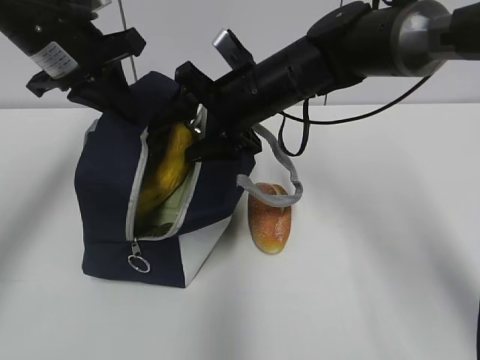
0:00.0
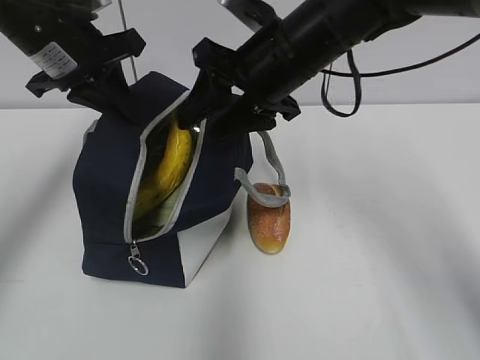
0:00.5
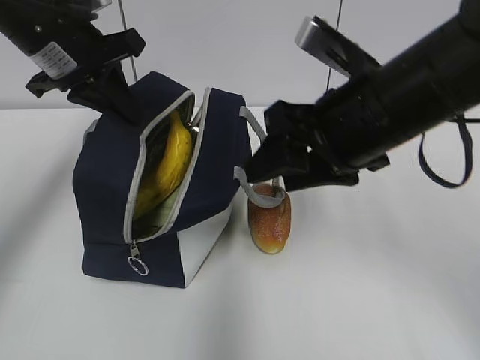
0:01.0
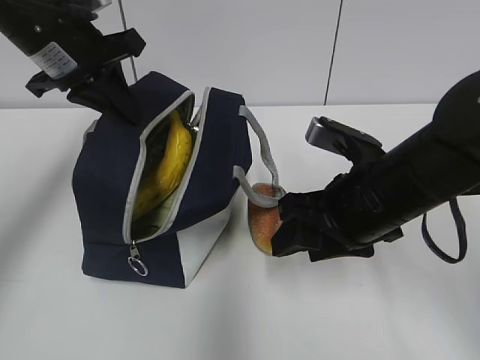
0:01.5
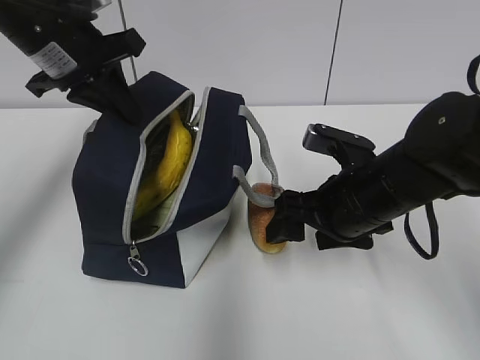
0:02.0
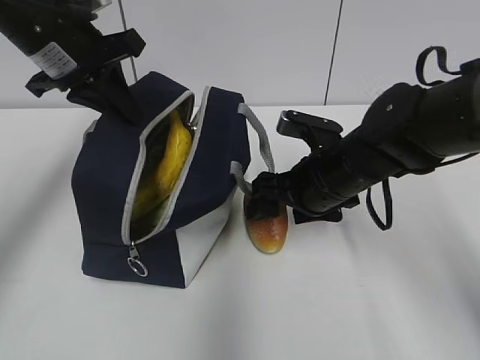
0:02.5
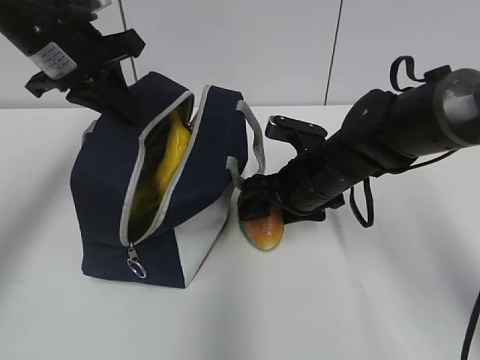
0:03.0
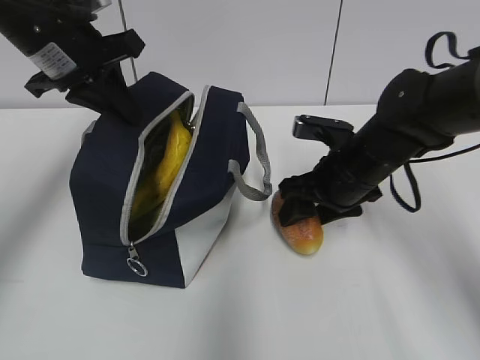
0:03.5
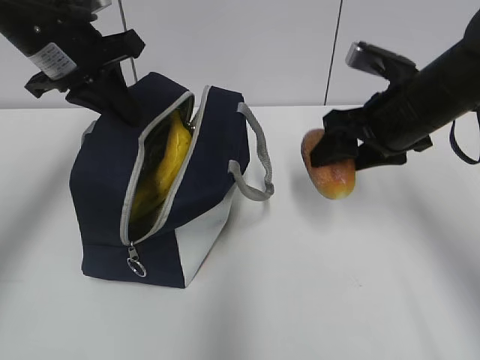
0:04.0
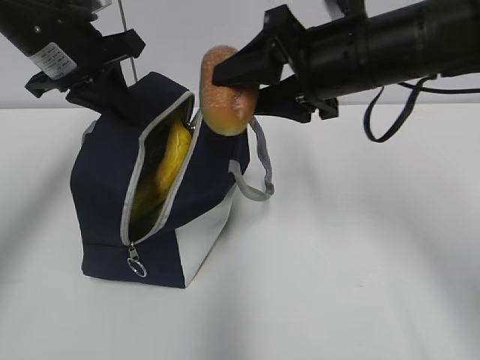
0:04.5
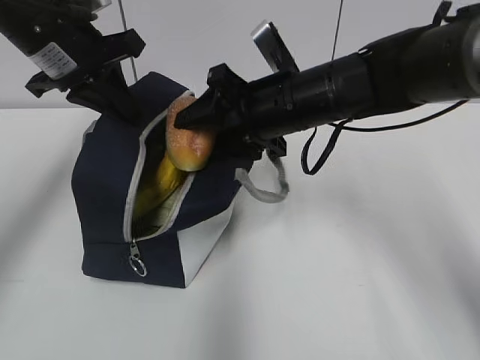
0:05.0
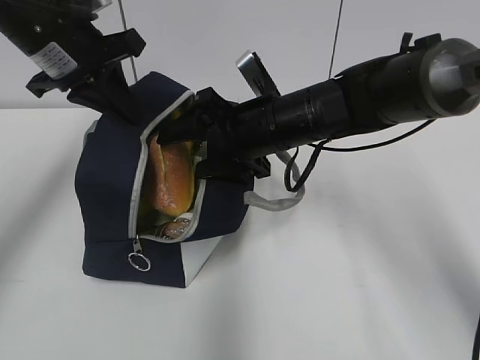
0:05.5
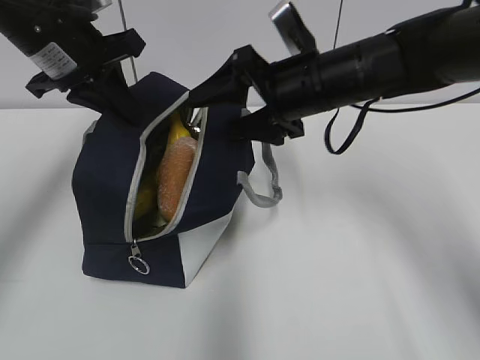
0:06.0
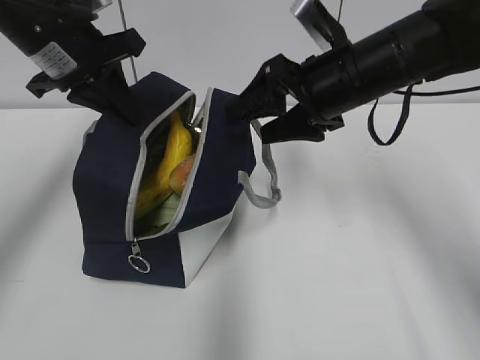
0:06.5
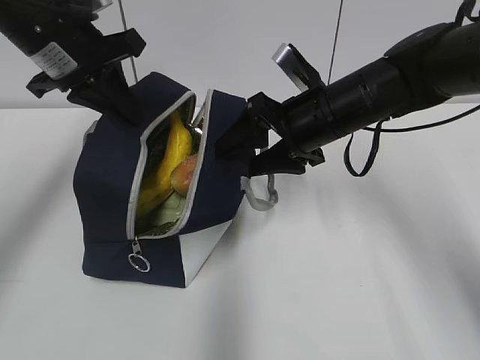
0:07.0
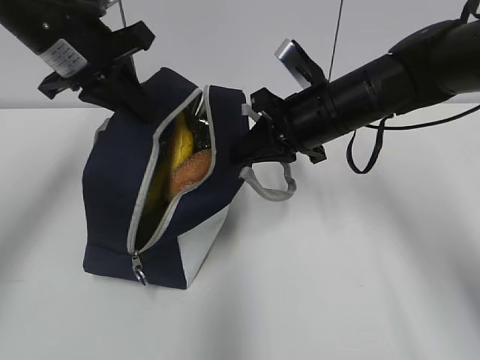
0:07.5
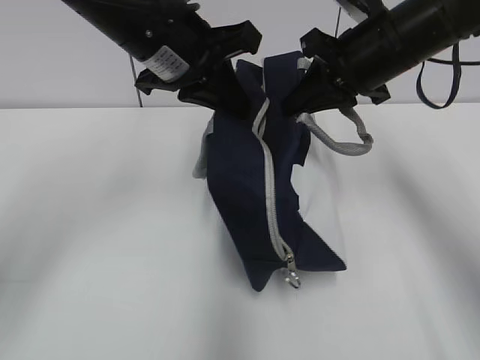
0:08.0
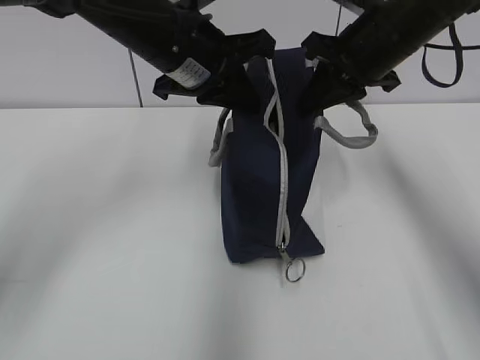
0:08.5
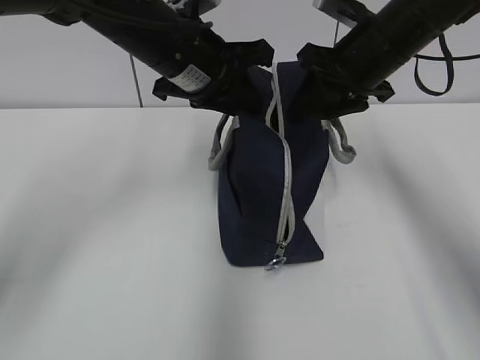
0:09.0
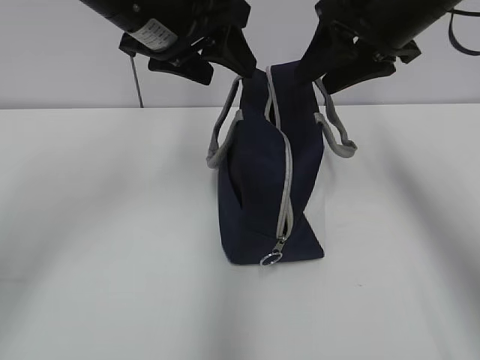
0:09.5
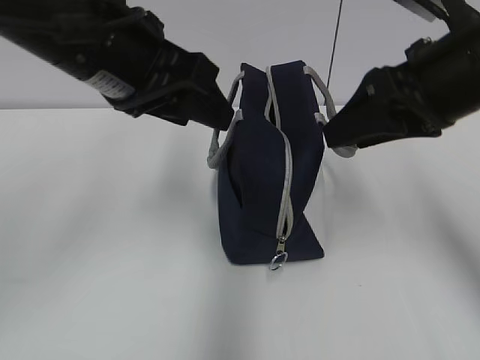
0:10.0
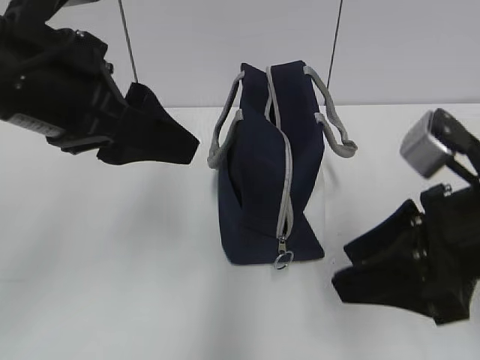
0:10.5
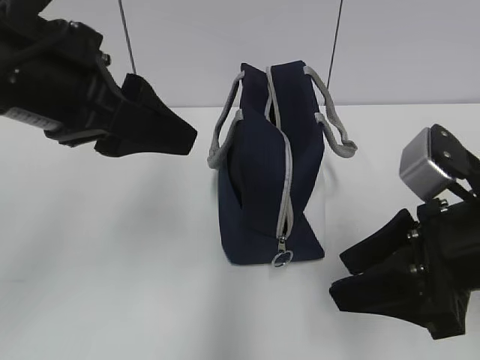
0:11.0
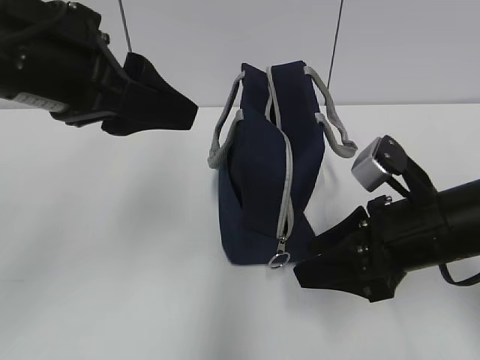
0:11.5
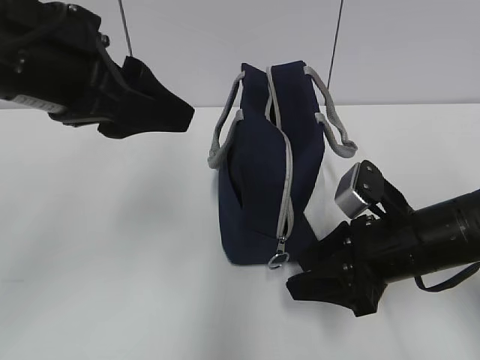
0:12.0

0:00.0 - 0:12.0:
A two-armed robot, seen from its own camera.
0:00.0 - 0:02.0: The right gripper heads backward, to the right and downward, covering some 15 cm.
0:02.0 - 0:04.0: The right gripper moves upward, to the right and forward, roughly 10 cm.
0:04.0 - 0:06.0: The right gripper goes some 10 cm to the left.
0:06.0 - 0:08.0: The left gripper moves to the right, about 10 cm. Meanwhile the right gripper shifts roughly 5 cm to the right, and closes its fingers.
0:08.0 - 0:10.0: Both grippers travel together backward, roughly 5 cm. The left gripper opens up; the right gripper opens its fingers.
0:10.0 - 0:12.0: The right gripper moves downward, approximately 20 cm; the left gripper shifts roughly 5 cm backward.

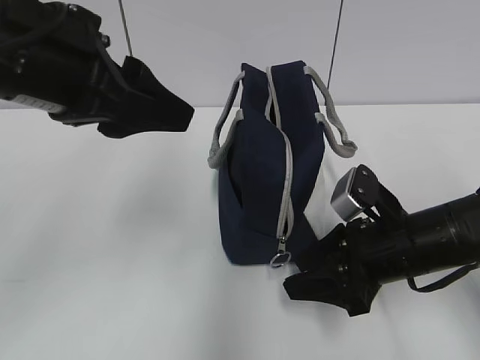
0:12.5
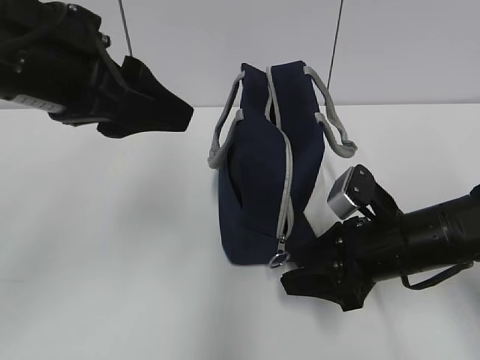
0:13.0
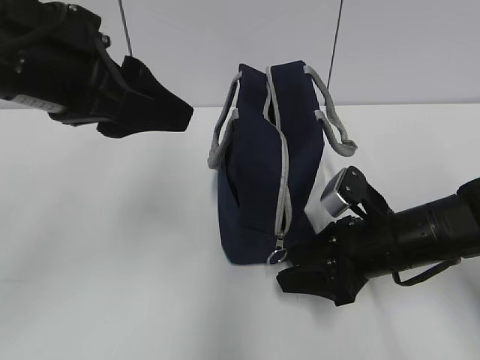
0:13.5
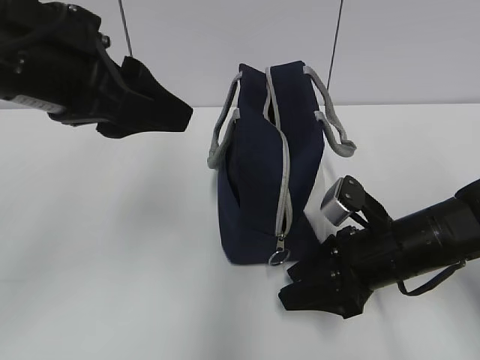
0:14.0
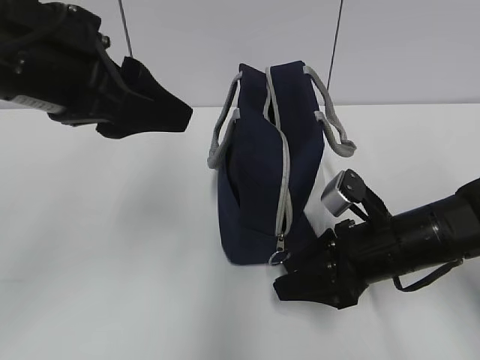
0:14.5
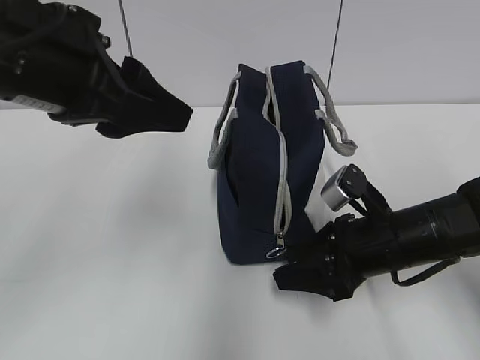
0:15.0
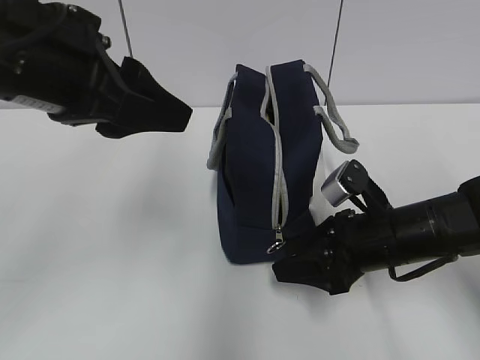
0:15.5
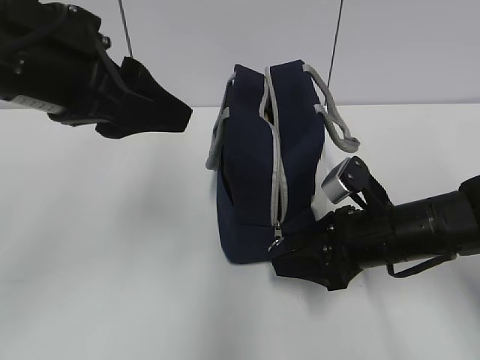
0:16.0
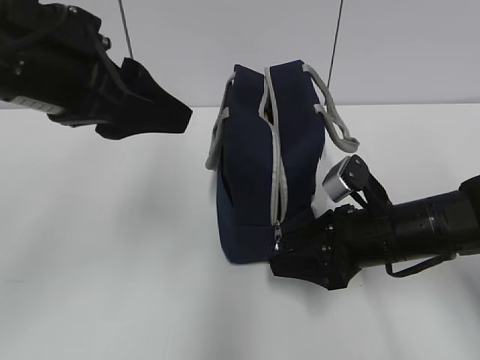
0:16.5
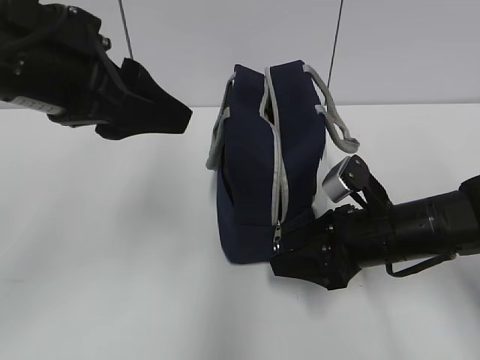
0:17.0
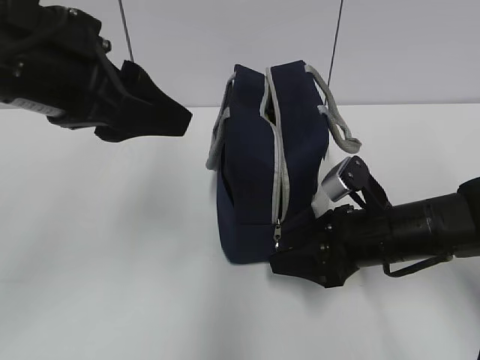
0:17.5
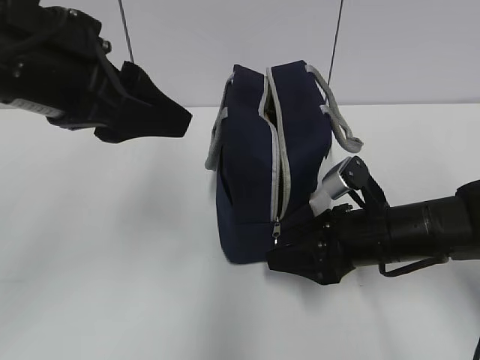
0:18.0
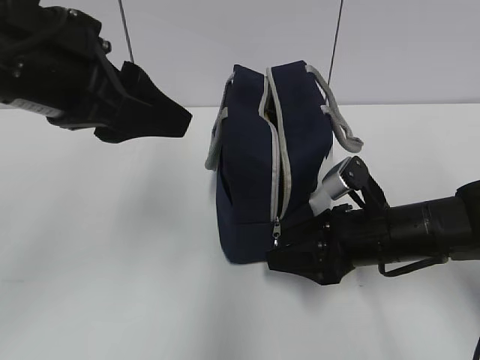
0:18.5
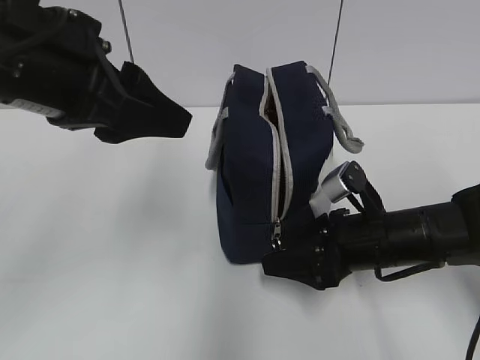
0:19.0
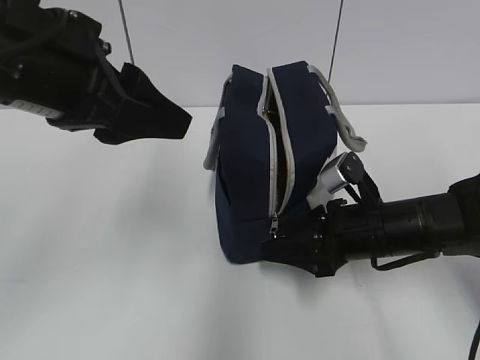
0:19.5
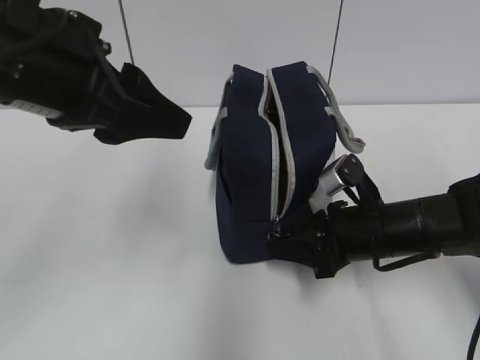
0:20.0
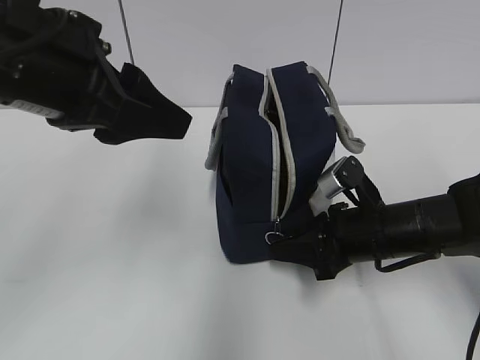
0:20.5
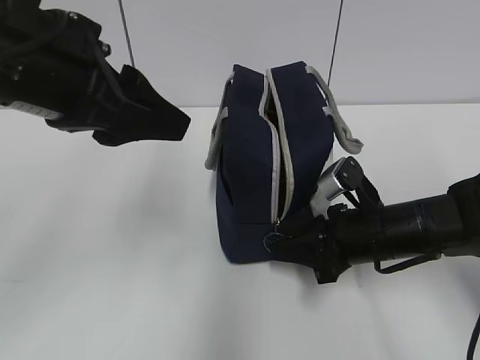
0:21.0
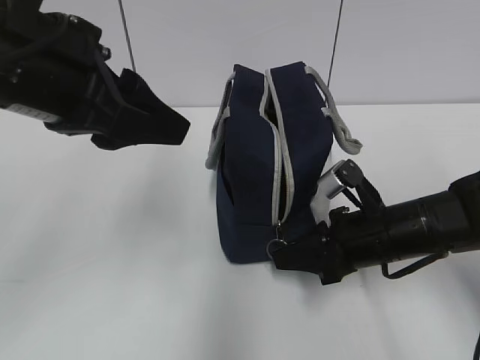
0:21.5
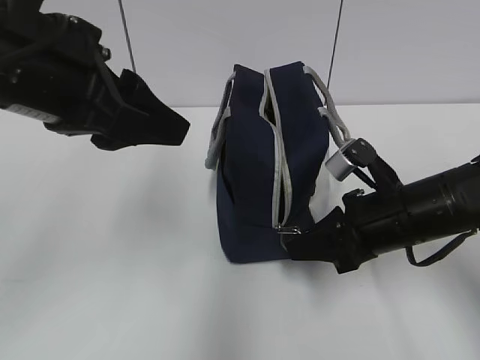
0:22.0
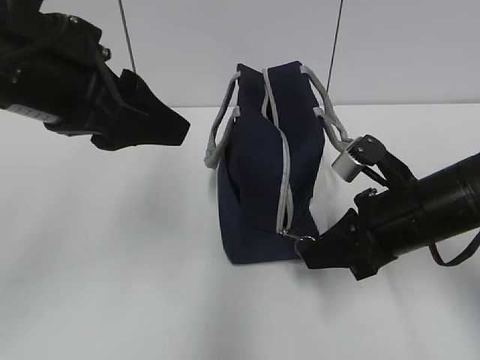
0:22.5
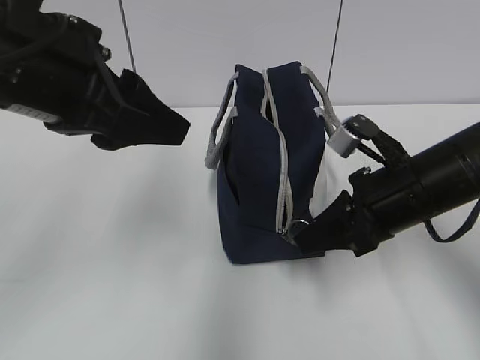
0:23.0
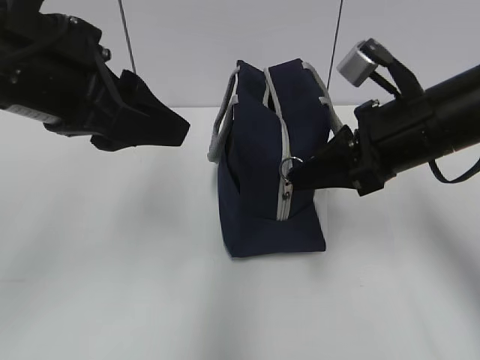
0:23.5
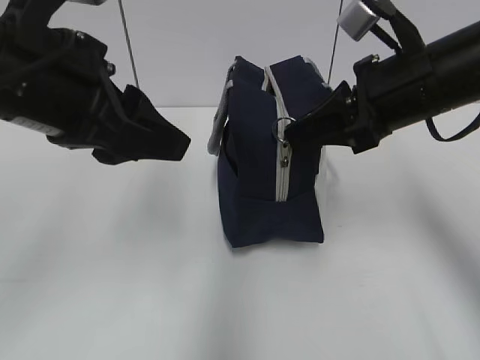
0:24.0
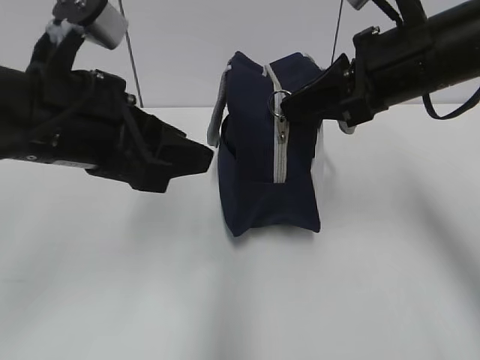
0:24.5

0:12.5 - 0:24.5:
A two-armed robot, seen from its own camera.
0:12.5 - 0:16.5: There are only small adjustments of the grippers.
0:16.5 - 0:18.5: The two grippers keep their place.
0:18.5 - 0:20.5: The right gripper closes up.
0:20.5 - 0:22.5: The right gripper travels upward by some 5 cm.
0:22.5 - 0:24.5: The right gripper shifts about 15 cm upward.

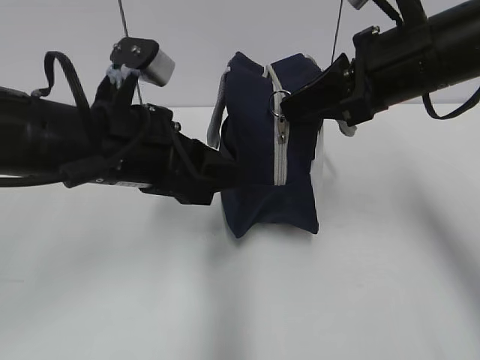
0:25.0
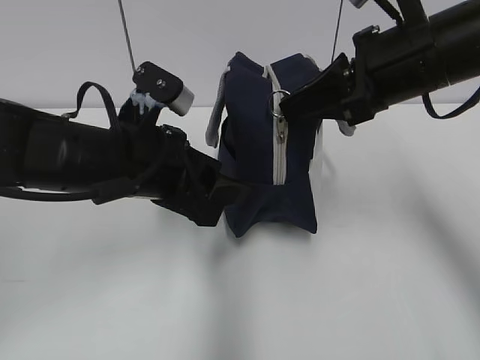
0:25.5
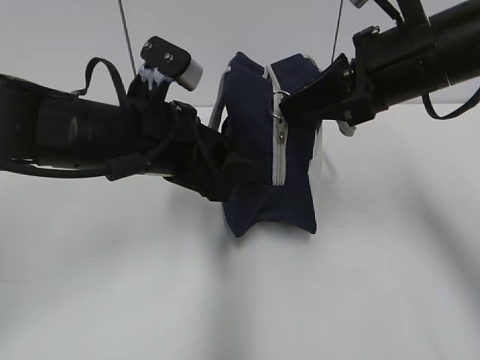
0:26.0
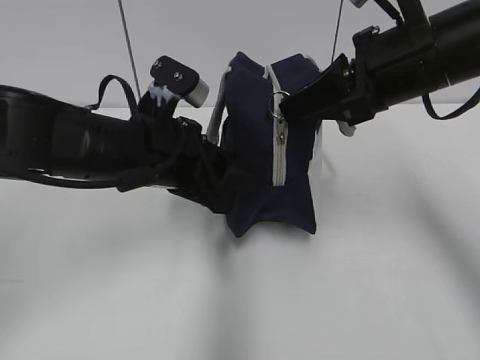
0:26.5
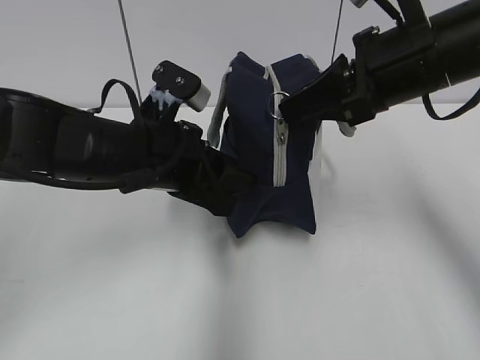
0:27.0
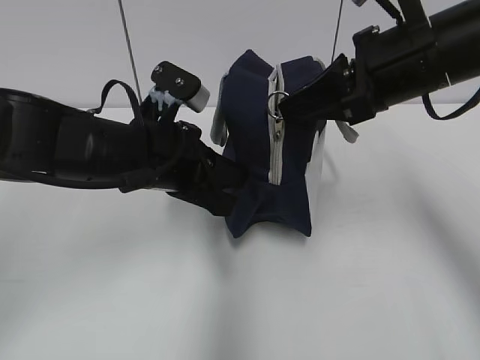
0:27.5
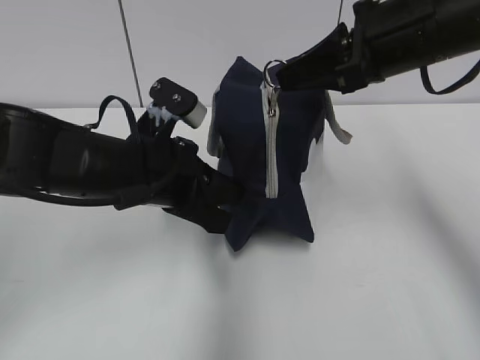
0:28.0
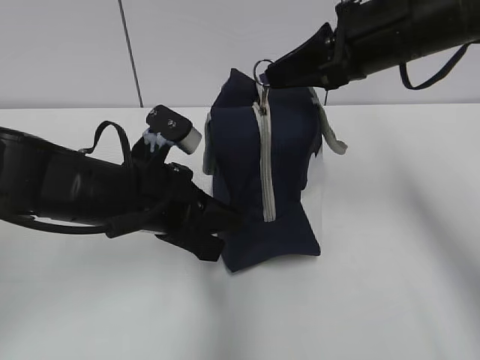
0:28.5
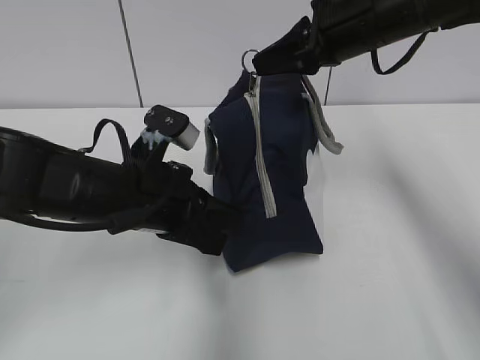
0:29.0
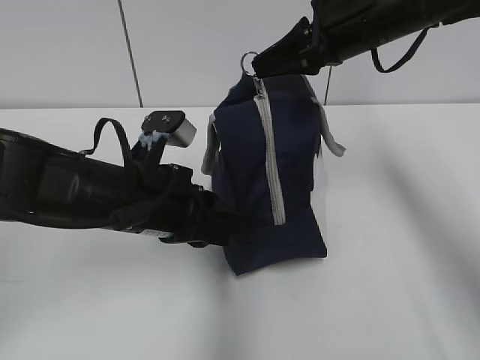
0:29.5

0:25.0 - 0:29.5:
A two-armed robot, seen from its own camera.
0:25.0 - 0:27.0: The left gripper shifts by roughly 5 cm.
0:27.0 - 0:29.5: The right gripper goes some 10 cm forward.
